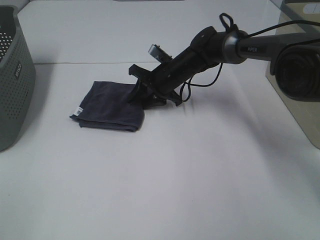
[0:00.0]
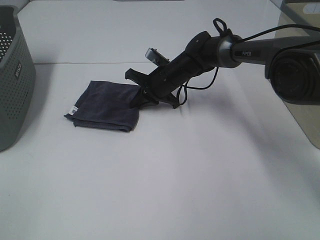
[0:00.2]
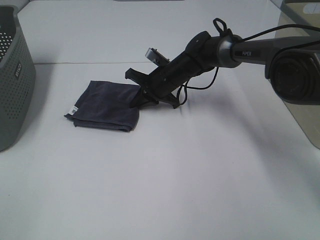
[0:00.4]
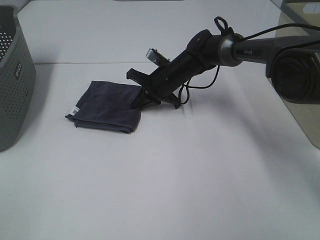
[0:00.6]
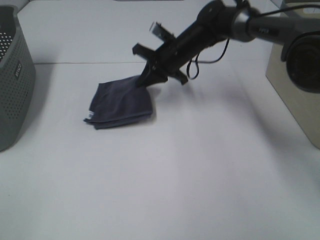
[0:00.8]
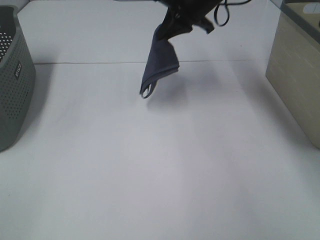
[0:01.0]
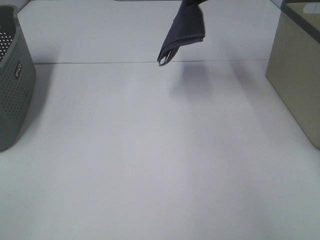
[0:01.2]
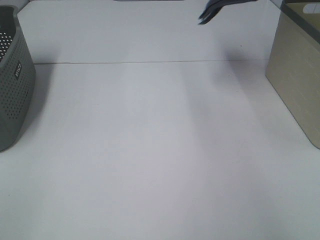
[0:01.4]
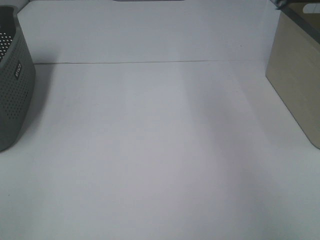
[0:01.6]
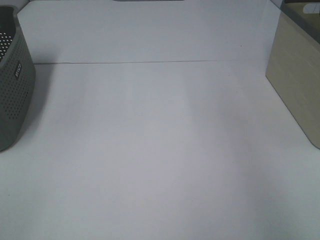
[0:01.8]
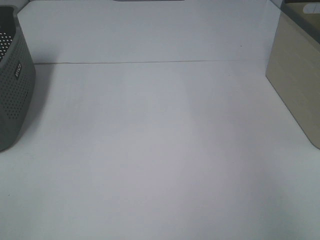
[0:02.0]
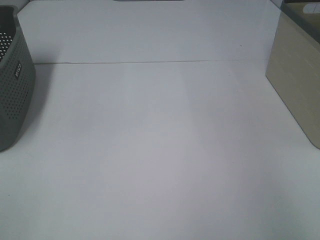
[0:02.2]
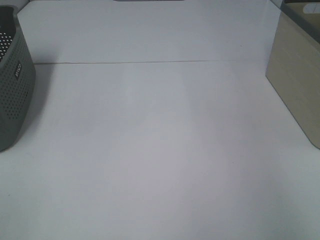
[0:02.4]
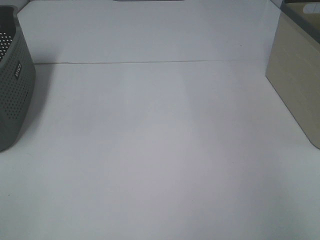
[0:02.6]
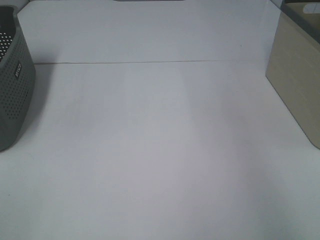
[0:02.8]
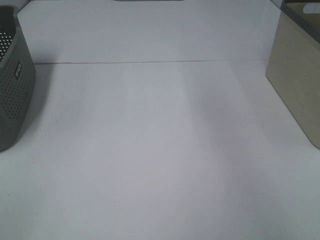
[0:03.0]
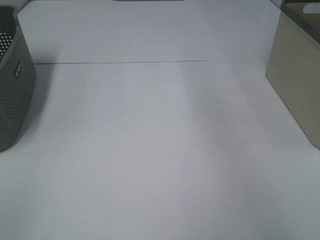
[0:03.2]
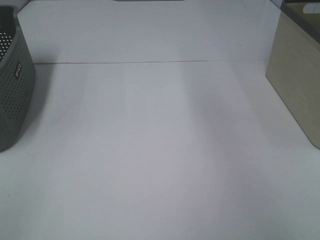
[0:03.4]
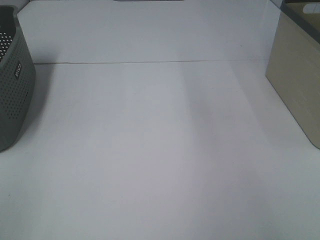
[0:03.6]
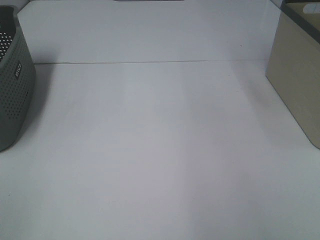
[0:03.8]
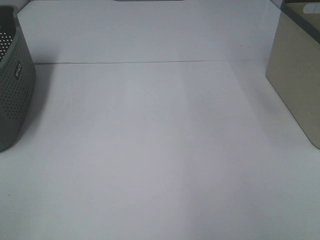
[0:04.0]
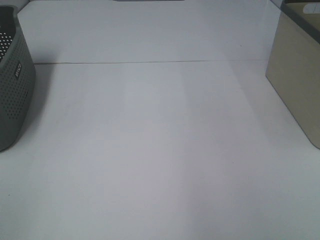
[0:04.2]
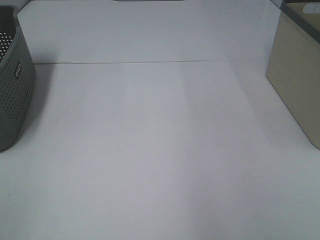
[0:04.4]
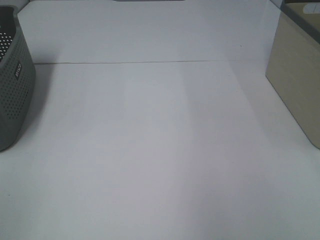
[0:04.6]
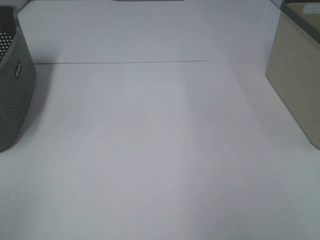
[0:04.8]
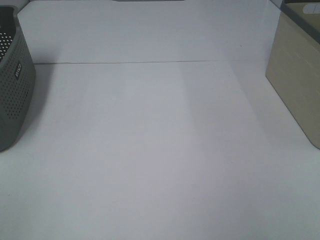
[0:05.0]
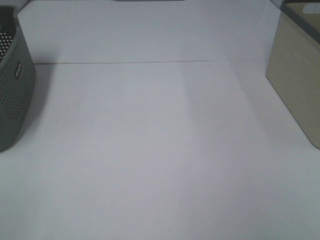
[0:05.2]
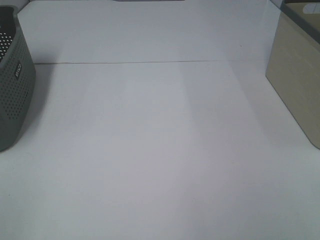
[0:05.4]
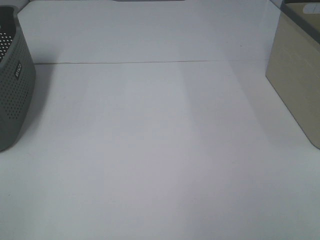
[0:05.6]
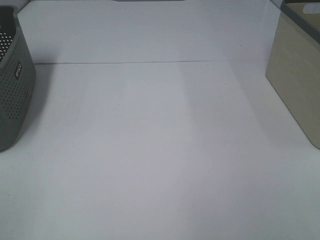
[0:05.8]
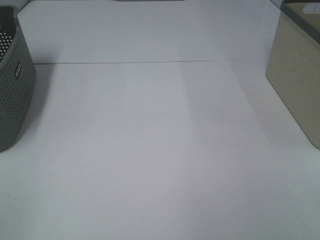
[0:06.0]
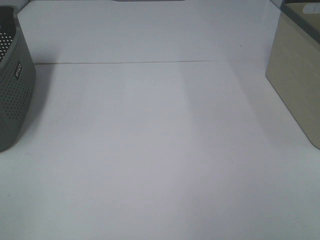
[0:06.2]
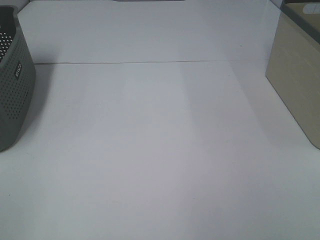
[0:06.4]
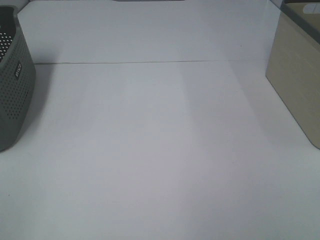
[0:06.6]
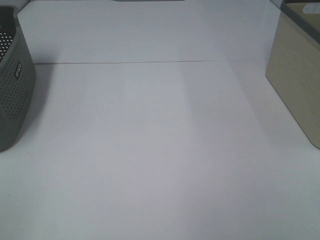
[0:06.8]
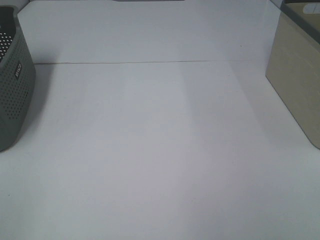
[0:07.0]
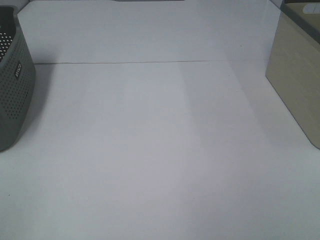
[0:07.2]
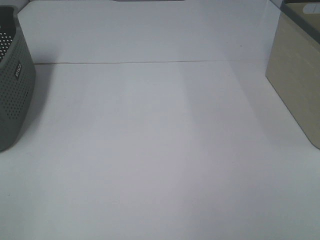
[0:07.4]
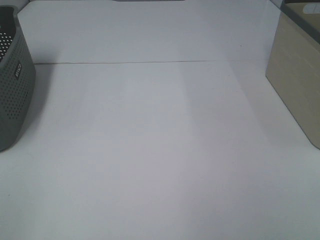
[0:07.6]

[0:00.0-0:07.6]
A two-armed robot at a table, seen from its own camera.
Step, 0:00.4 to 0:02.4: Right hand: place the grey towel in right basket.
0:00.0 to 0:01.6: The right gripper travels upward and to the right by about 50 cm, and closes its fingers.

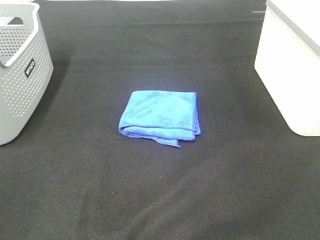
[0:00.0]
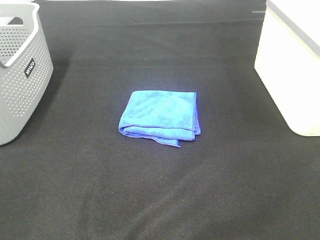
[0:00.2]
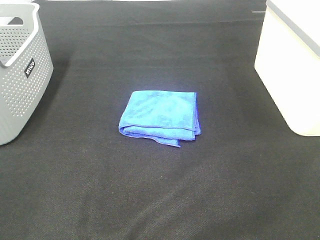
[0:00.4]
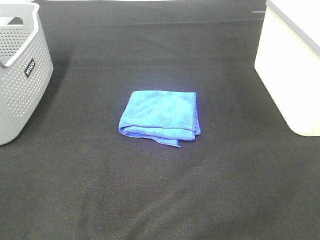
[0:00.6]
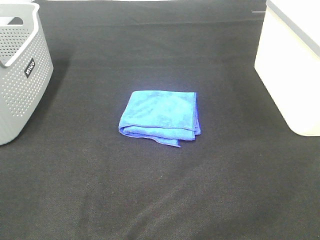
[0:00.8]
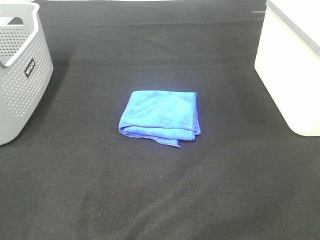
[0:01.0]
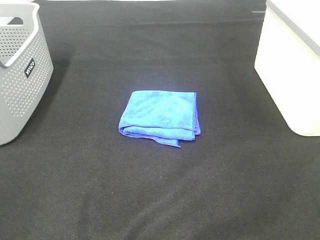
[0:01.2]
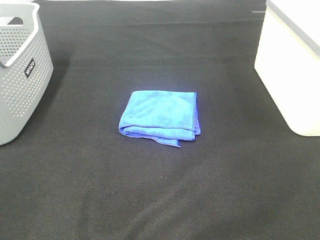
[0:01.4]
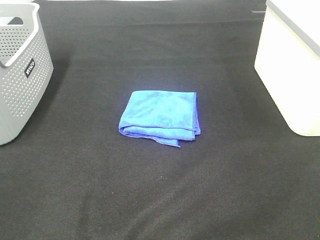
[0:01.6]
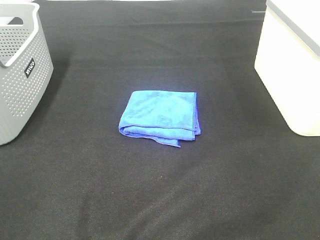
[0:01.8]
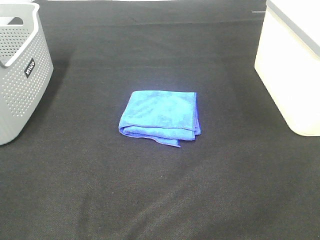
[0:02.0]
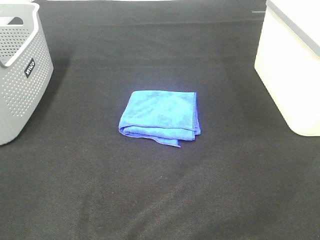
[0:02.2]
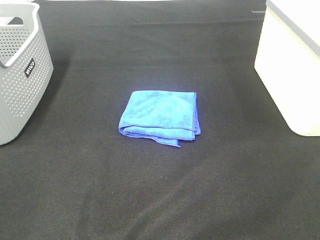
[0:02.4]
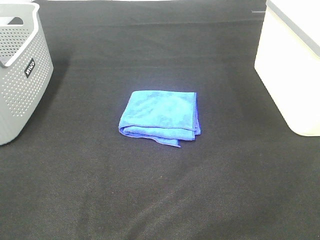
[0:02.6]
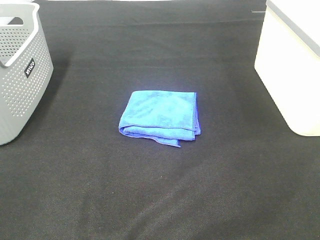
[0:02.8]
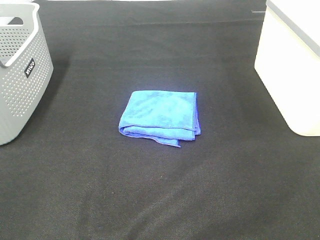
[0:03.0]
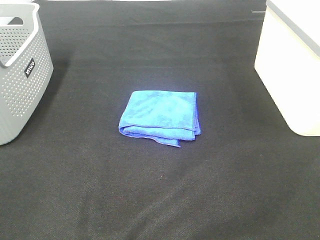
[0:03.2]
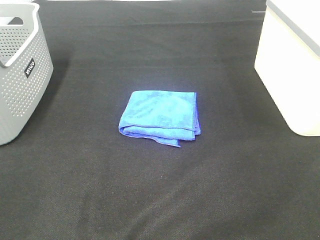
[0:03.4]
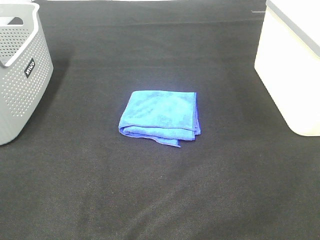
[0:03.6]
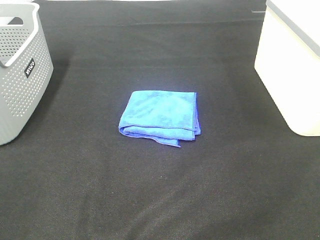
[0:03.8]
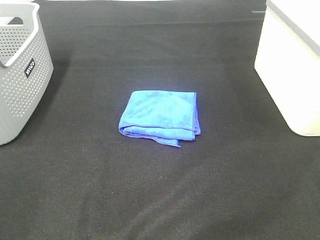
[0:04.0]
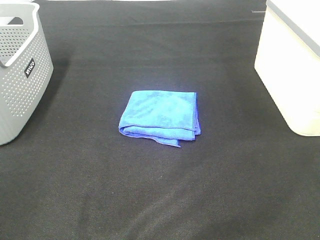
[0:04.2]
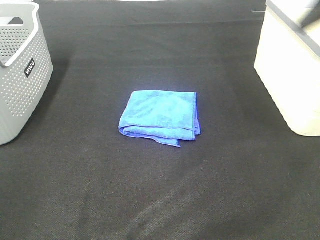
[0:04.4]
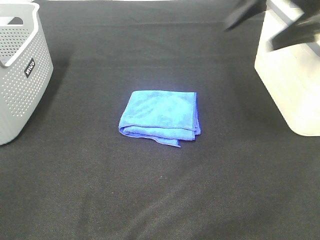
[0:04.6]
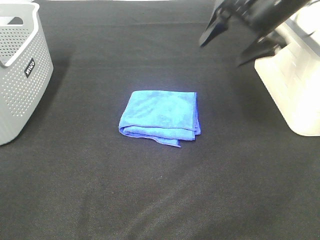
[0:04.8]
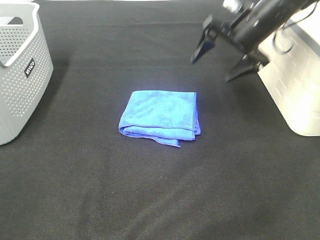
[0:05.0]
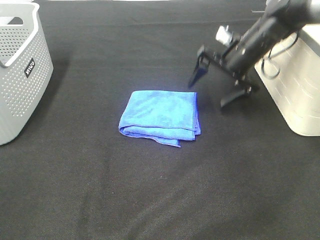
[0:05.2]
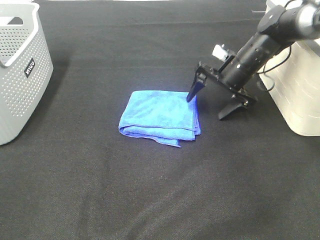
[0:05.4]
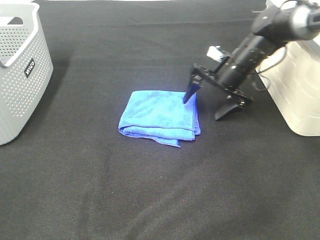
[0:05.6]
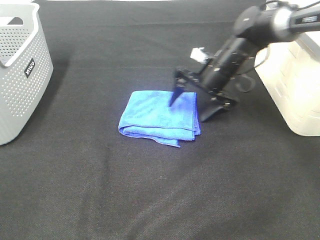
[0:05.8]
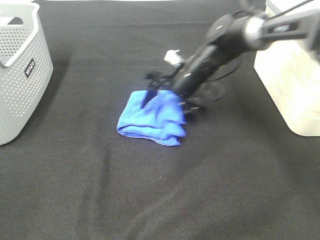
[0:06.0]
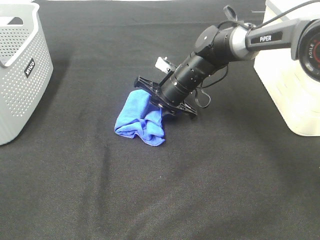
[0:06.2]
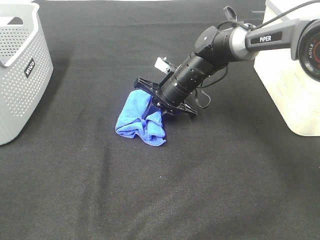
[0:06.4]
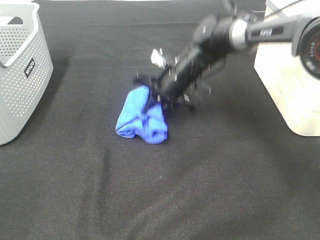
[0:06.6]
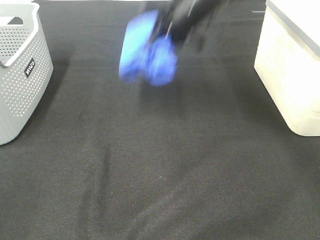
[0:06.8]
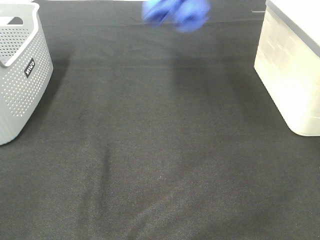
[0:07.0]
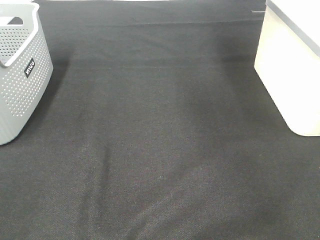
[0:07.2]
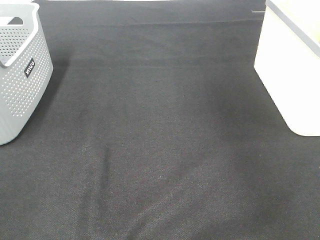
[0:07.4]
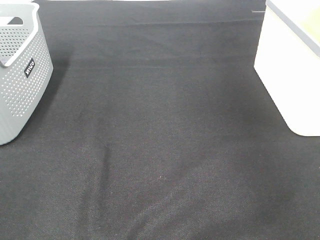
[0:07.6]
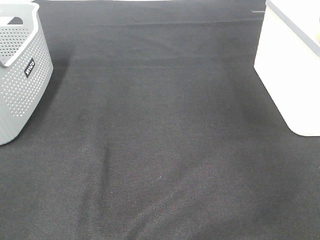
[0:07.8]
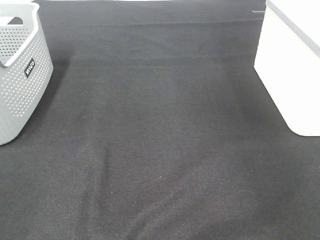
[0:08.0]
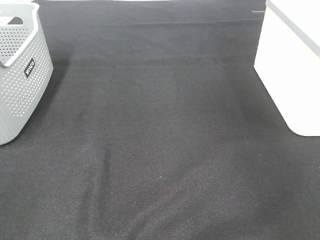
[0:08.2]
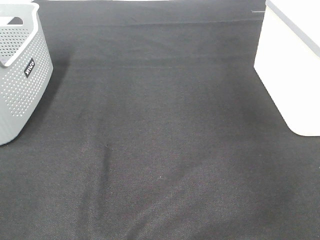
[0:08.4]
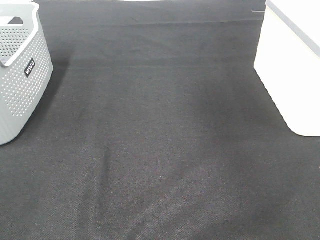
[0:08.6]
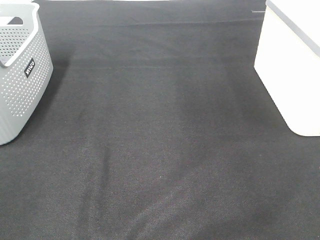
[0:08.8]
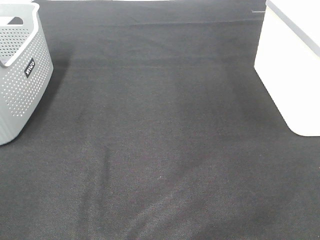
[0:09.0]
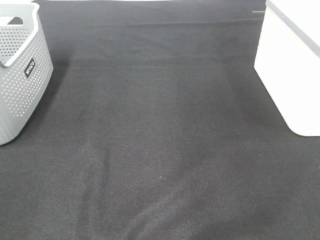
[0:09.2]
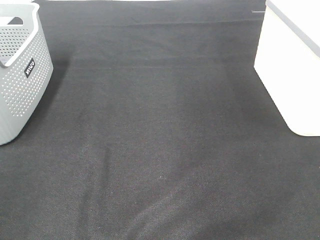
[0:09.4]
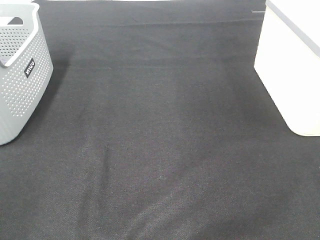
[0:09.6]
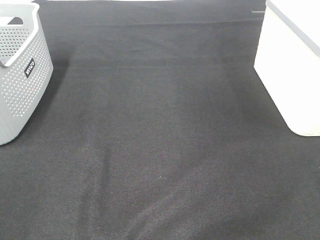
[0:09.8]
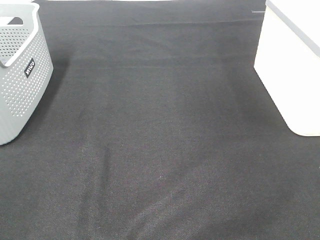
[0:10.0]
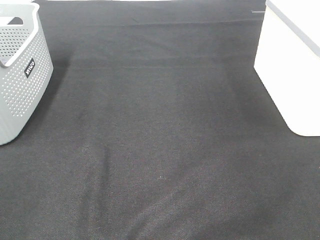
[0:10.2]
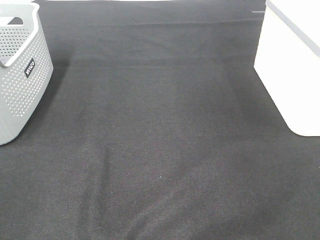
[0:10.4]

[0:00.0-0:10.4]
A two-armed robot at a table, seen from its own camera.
Step, 0:00.0 to 0:06.4: Right hand: grab the folded blue towel.
Step, 0:06.6 to 0:08.0: Right hand: place the blue towel in right basket.
0:00.0 to 0:03.0: The two grippers keep their place.
0:03.0 to 0:04.4: The right gripper is displaced forward by roughly 25 cm.
0:04.4 to 0:06.0: The right gripper goes about 35 cm downward, to the left and forward.
0:06.0 to 0:07.4: The right gripper moves upward and to the right, roughly 40 cm, and closes.

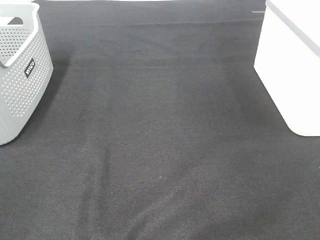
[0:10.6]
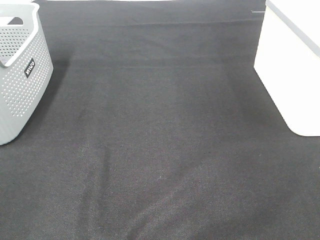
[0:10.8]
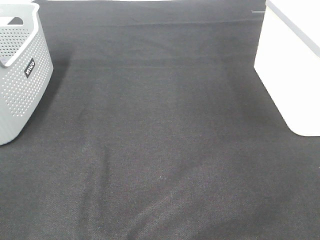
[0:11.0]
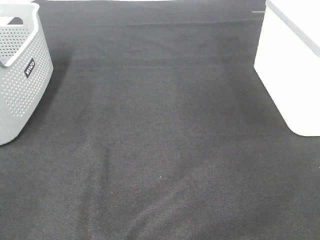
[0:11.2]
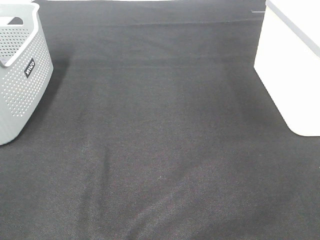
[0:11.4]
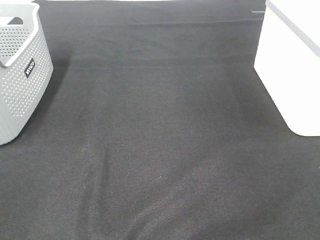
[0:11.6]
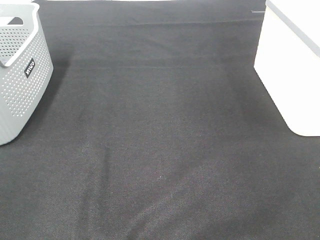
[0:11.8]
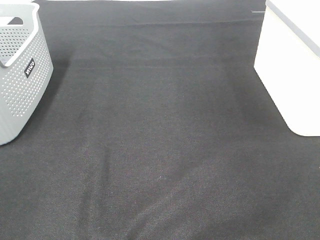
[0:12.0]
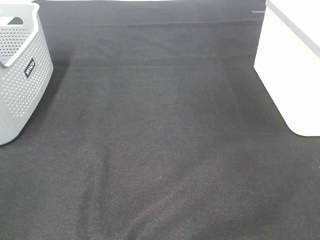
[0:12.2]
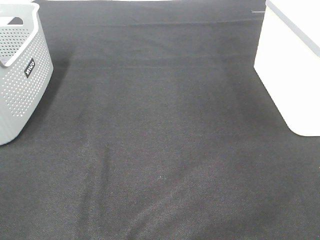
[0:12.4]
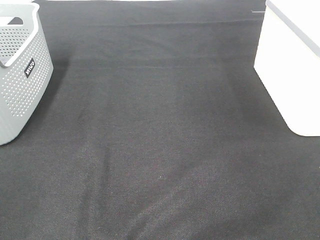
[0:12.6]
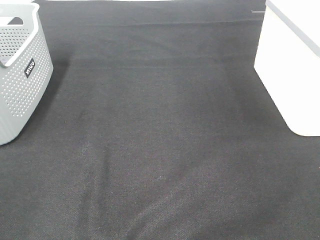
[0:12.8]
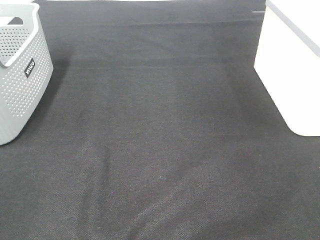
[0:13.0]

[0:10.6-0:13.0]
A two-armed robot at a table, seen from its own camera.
0:10.6 to 0:13.0: The two grippers keep their place.

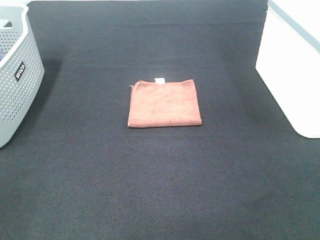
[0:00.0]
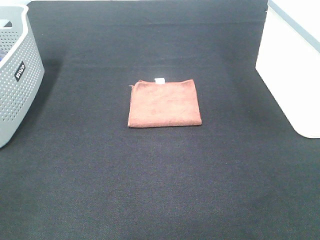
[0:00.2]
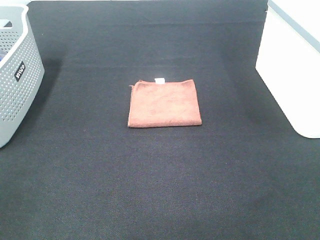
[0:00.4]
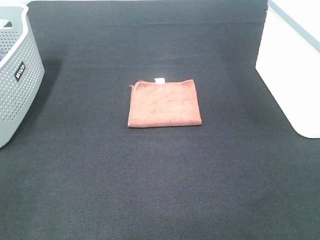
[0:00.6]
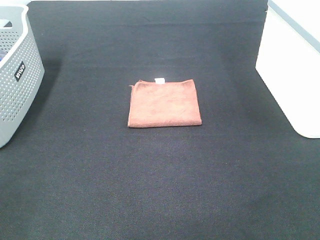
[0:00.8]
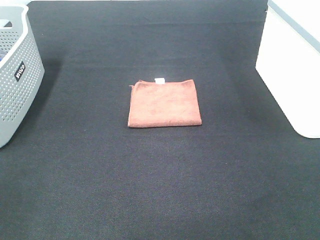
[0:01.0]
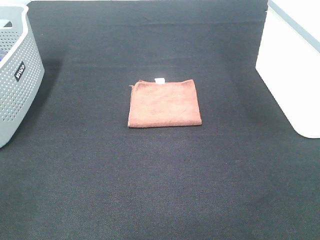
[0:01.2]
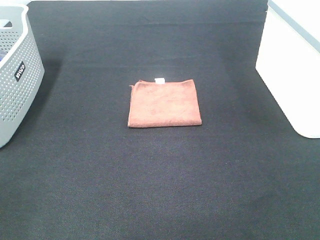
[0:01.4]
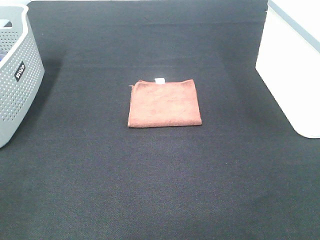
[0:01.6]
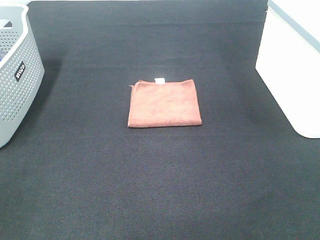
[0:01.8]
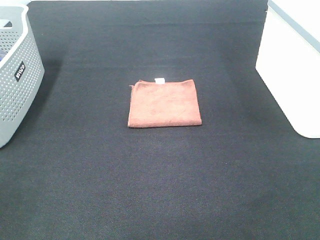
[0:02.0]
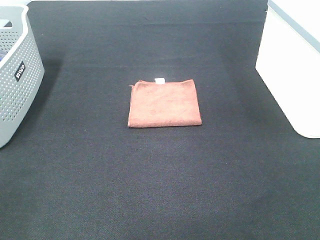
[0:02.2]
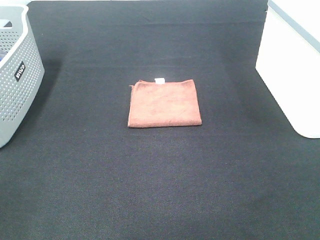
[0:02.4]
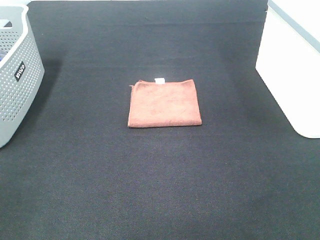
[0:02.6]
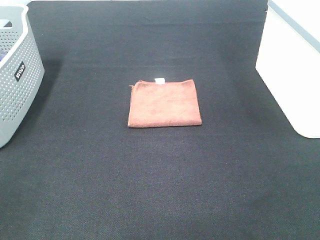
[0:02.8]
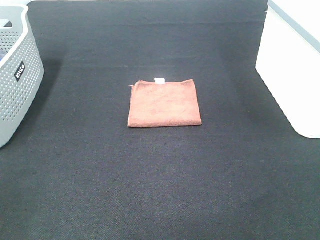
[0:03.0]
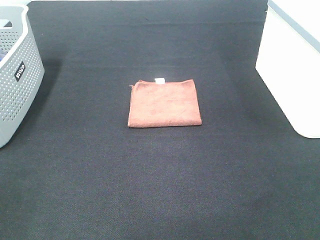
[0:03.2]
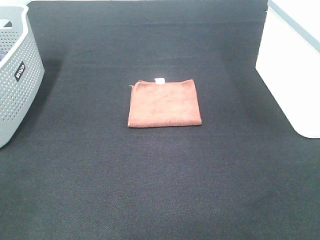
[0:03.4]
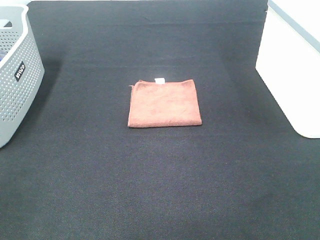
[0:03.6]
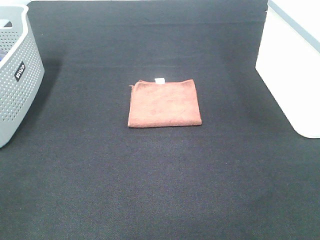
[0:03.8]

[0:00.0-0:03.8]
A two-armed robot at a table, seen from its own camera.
0:00.0 to 0:03.8: The two grippers keep their place.
